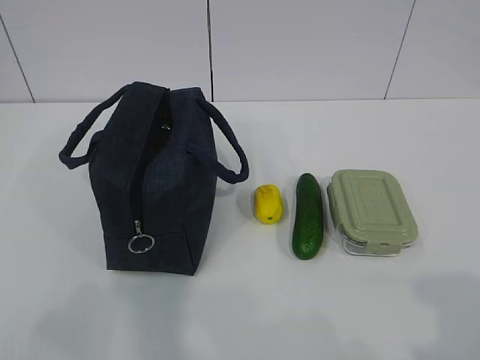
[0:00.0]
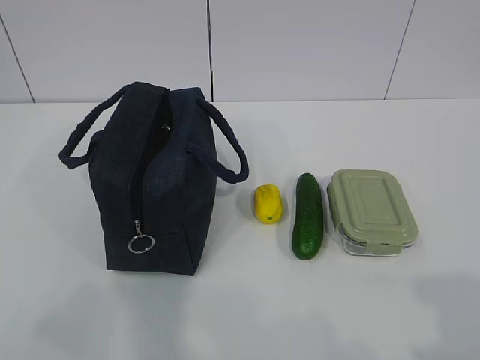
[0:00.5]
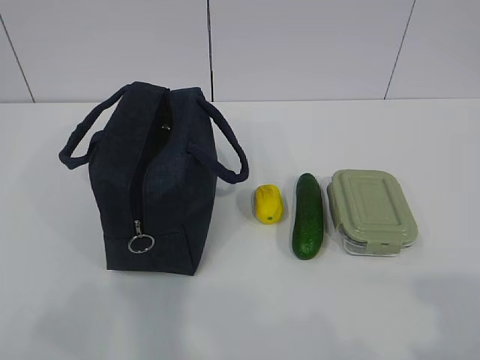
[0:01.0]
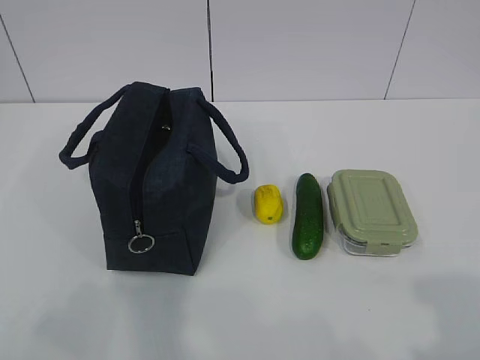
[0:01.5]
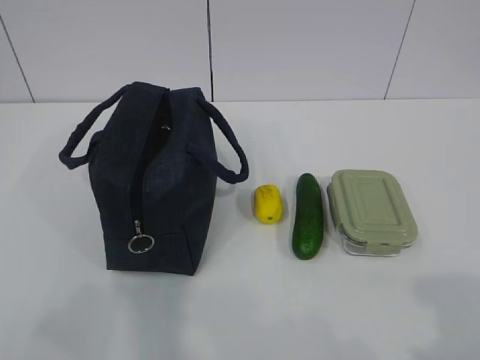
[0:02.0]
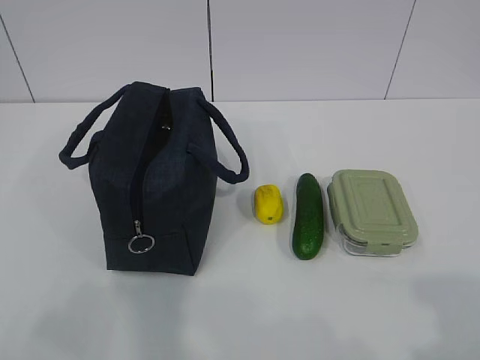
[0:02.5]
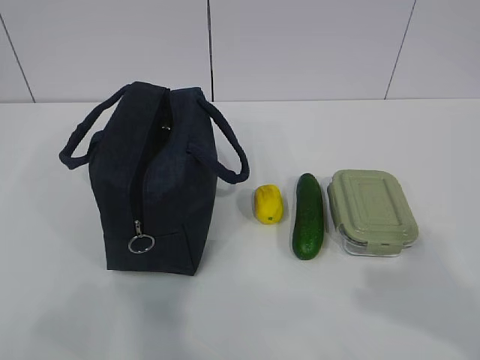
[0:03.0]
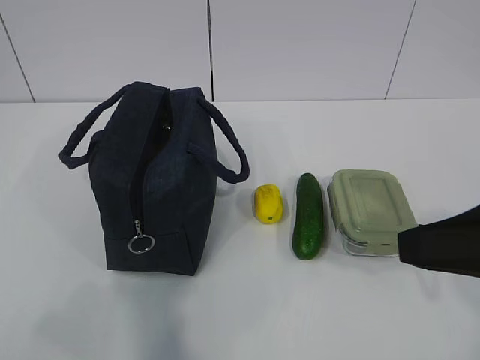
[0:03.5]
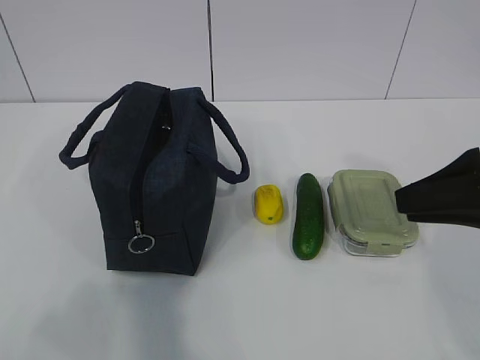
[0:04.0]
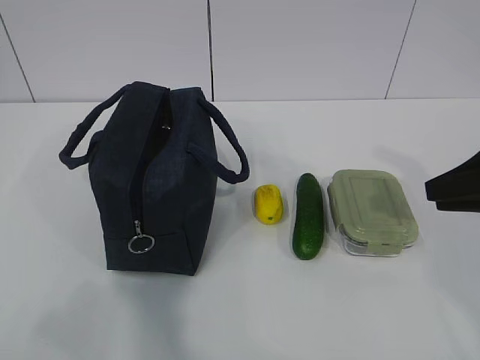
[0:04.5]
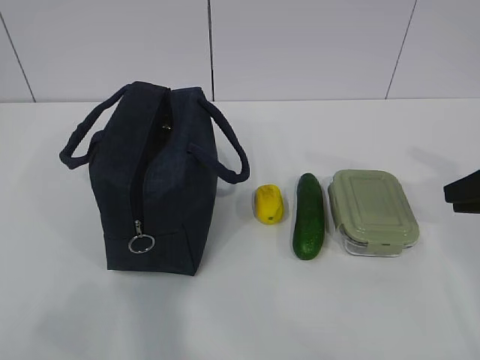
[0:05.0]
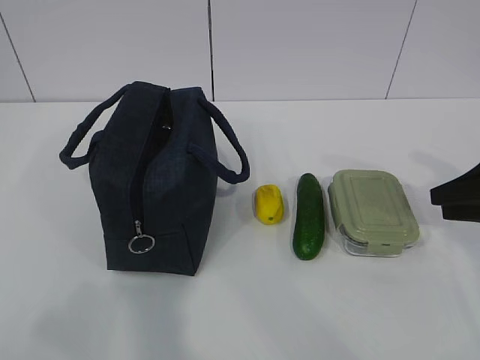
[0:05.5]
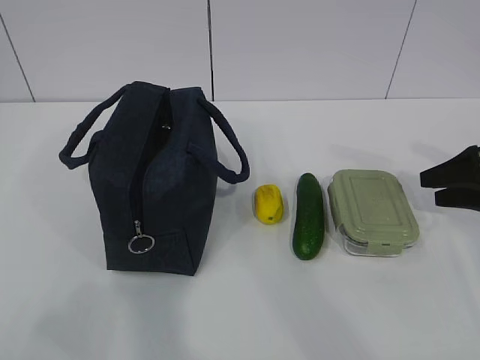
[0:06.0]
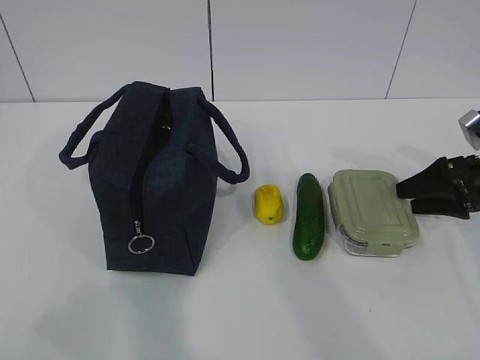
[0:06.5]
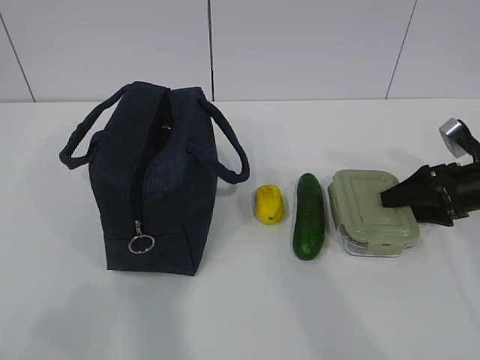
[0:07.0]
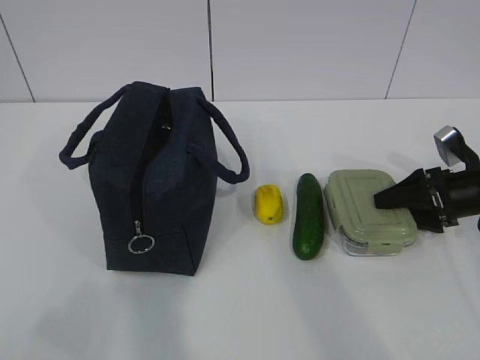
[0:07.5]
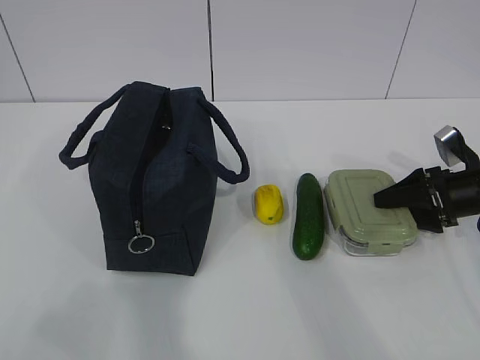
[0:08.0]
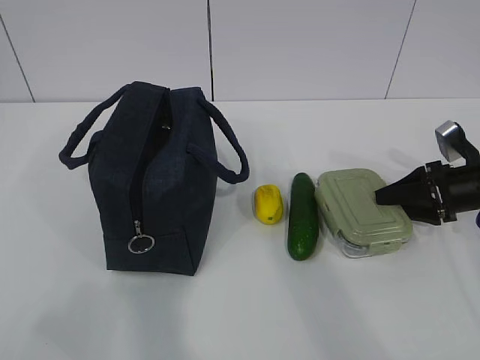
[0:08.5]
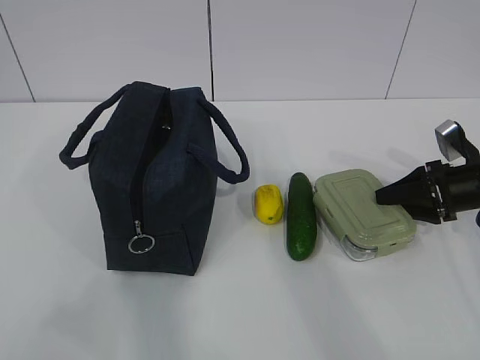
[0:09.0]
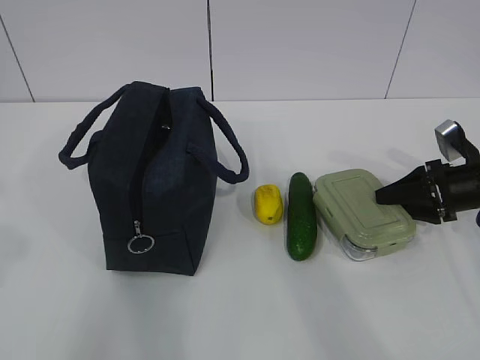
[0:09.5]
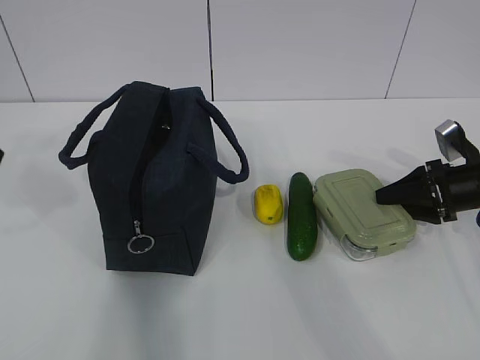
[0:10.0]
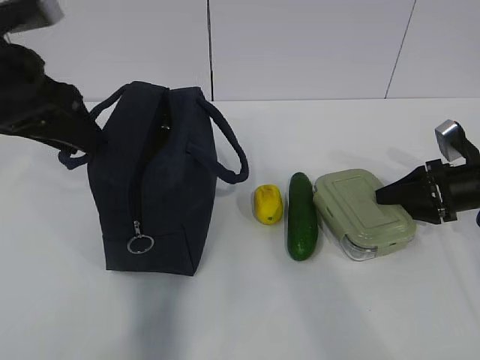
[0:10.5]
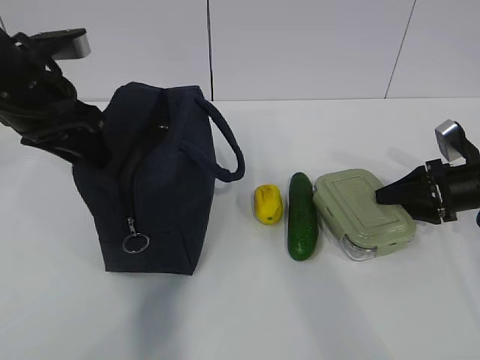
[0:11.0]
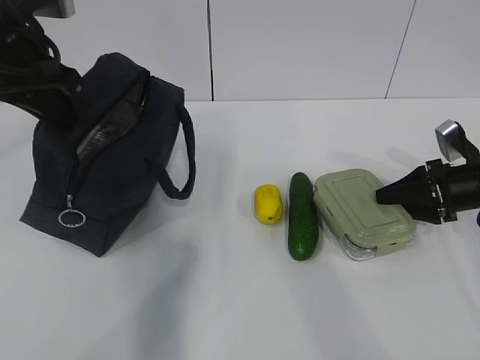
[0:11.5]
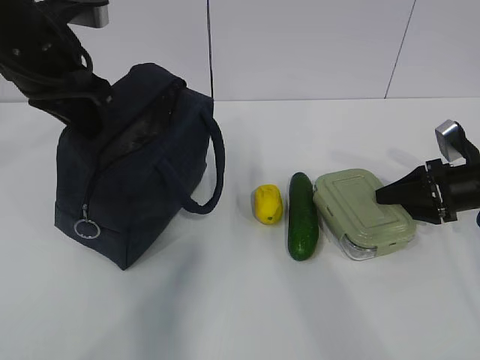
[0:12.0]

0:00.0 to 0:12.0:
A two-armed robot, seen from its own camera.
Step, 0:00.0 to 0:07.5: Grasp the box with the right gripper.
Step, 0:08.0 to 0:12.0: Grasp the package with the left gripper.
0:02.0 to 0:04.0: The right gripper travels forward by some 25 cm.
0:04.0 to 0:06.0: The right gripper travels forward, to the right and downward by some 20 cm, and opens its fingers.
0:06.0 to 0:08.0: The right gripper heads downward, covering about 5 cm.
0:08.0 to 0:10.0: The left gripper moves forward, approximately 20 cm.
0:10.0 to 0:12.0: The left gripper travels forward and to the right by about 15 cm, and closes its fingers.

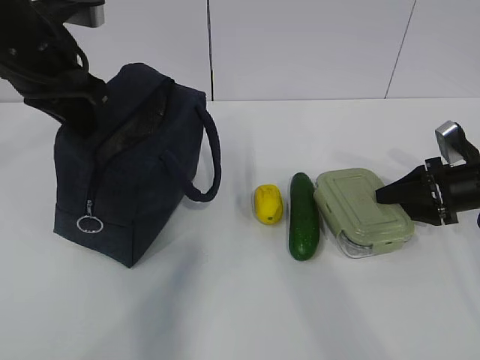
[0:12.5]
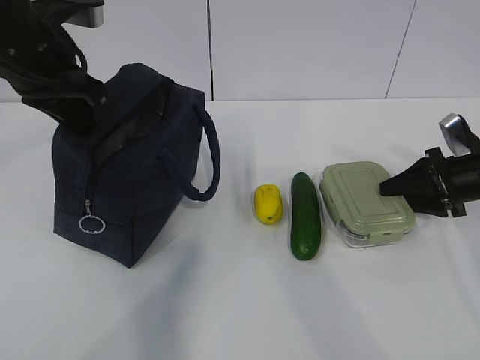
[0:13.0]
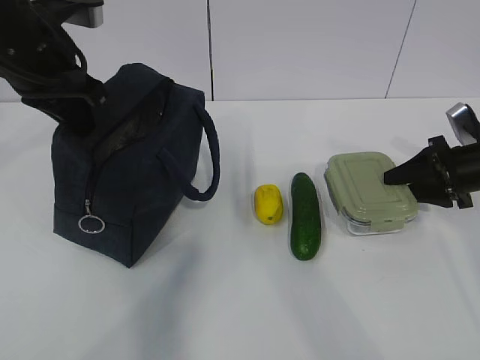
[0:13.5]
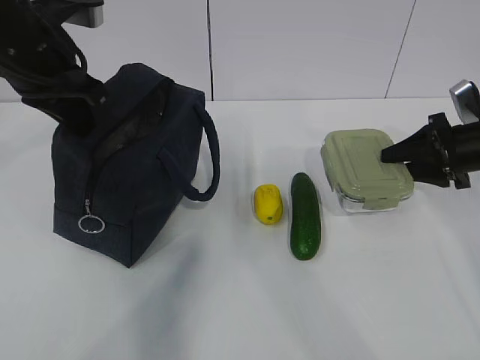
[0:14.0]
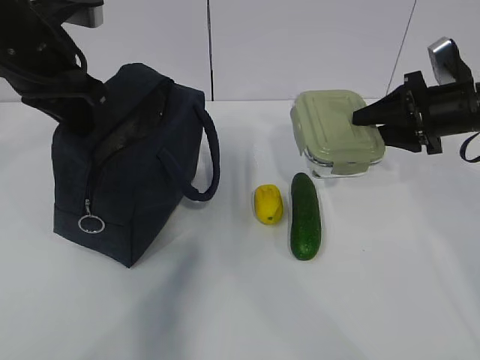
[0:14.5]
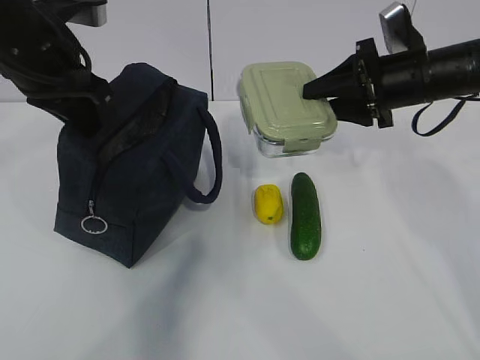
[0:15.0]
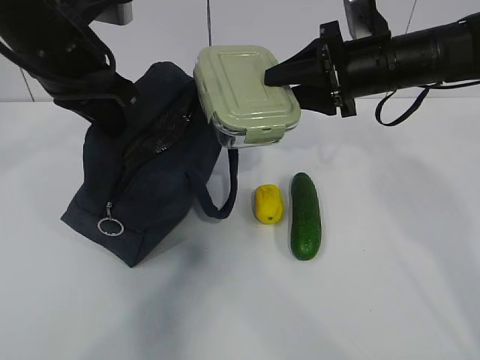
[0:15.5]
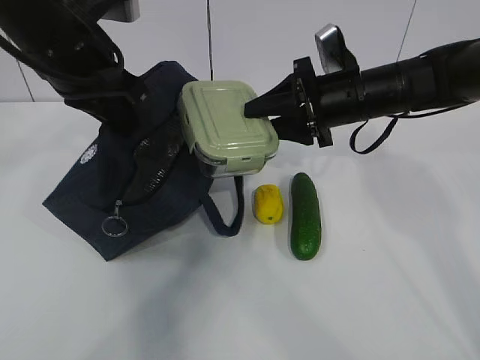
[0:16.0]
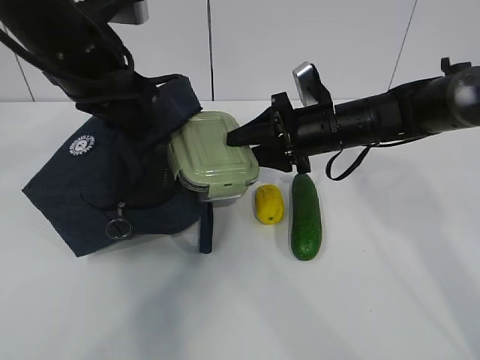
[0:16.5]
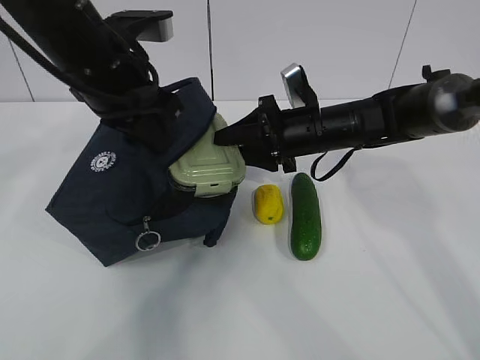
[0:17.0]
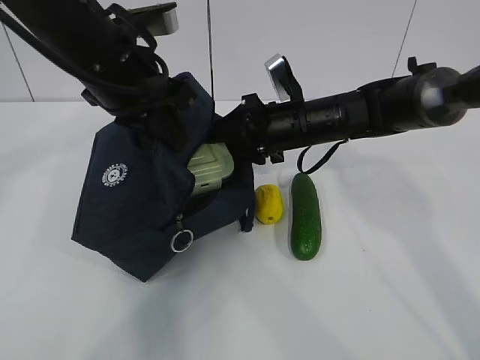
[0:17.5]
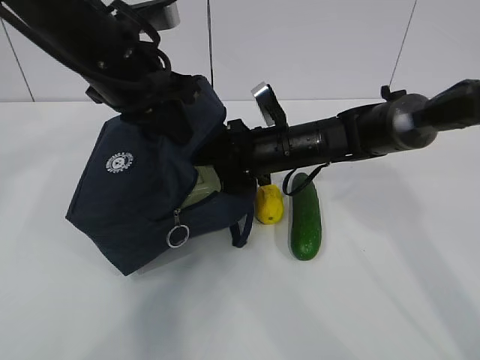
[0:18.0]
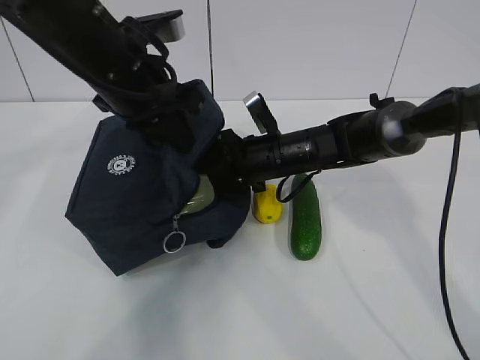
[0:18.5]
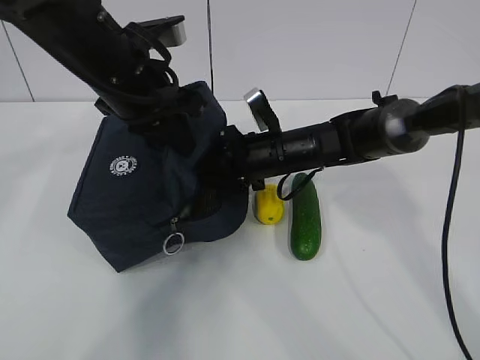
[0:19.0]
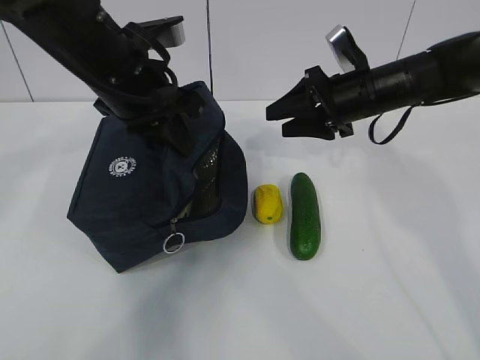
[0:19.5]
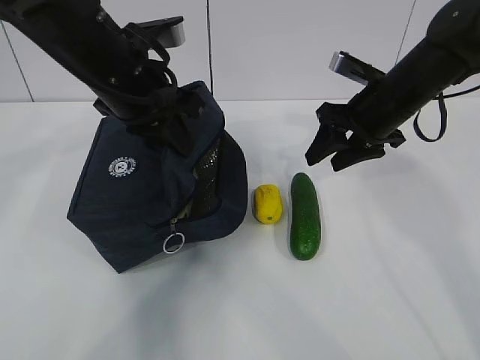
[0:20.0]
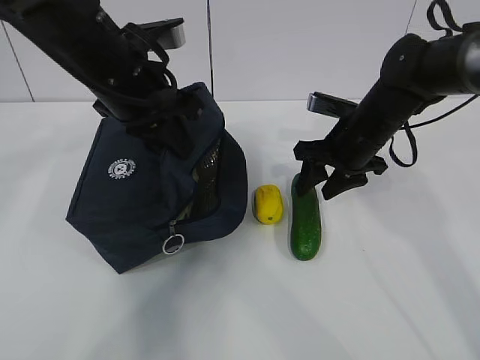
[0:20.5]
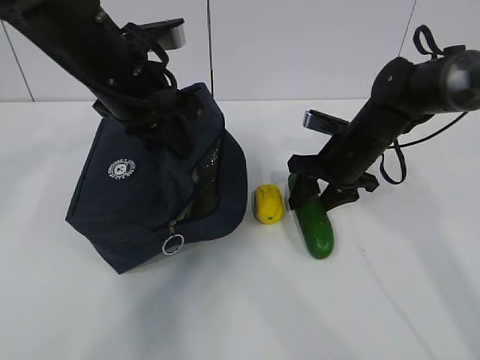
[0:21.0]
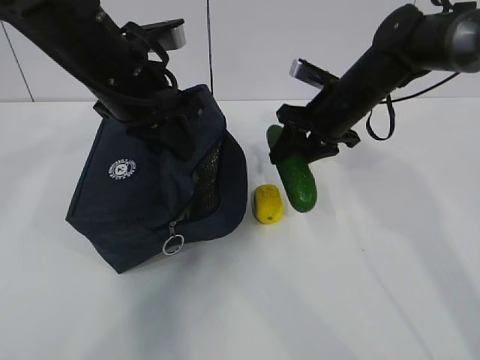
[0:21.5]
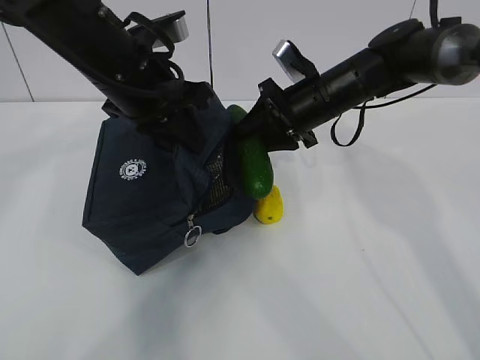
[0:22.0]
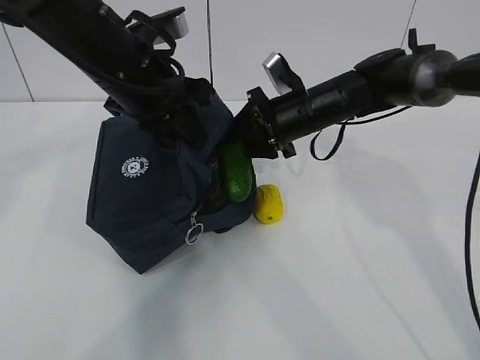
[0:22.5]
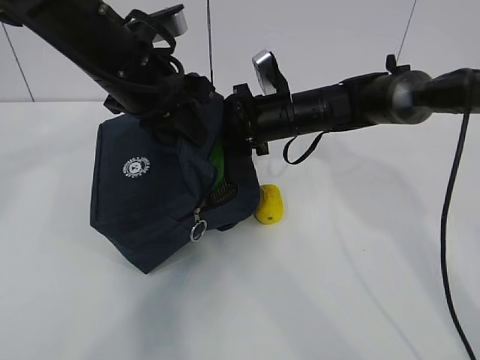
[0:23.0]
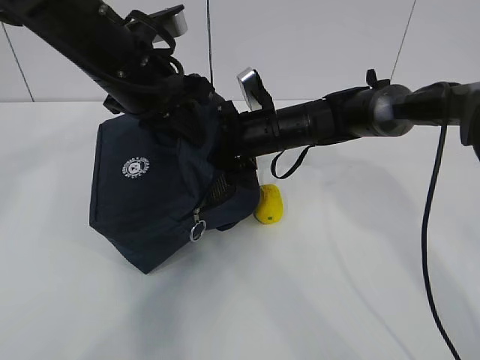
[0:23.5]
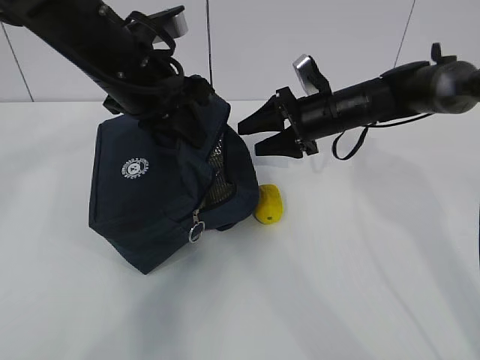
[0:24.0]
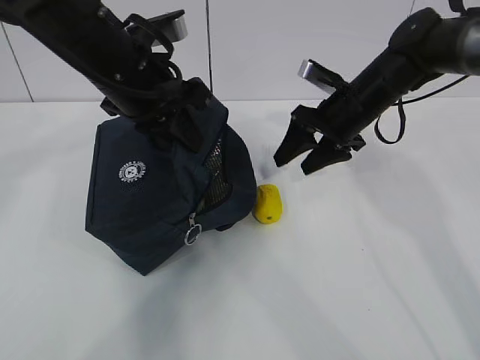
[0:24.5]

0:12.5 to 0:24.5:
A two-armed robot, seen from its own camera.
Step, 0:12.5 to 0:19.0: Place the box into the package with the right gripper.
Step, 0:19.5 to 0:21.0: Grasp the cucumber with the right gripper.
Step, 0:21.5 to 0:23.5: Place the cucumber into the package with the right gripper.
0:12.5 to 0:14.5: The right gripper shifts roughly 10 cm upward and to the left.
0:14.5 to 0:16.5: The right gripper moves to the left, roughly 15 cm. Meanwhile the left gripper shifts by some 5 cm.
0:16.5 to 0:18.5: The right gripper moves to the left, about 5 cm.
0:18.5 to 0:20.5: The right gripper moves to the right, roughly 10 cm.
0:20.5 to 0:22.5: The right gripper goes roughly 5 cm to the left.
0:22.5 to 0:24.5: The right gripper shifts about 5 cm to the right.

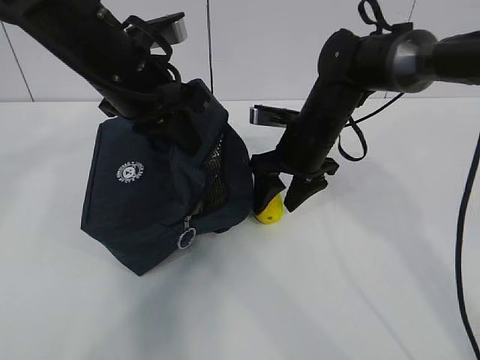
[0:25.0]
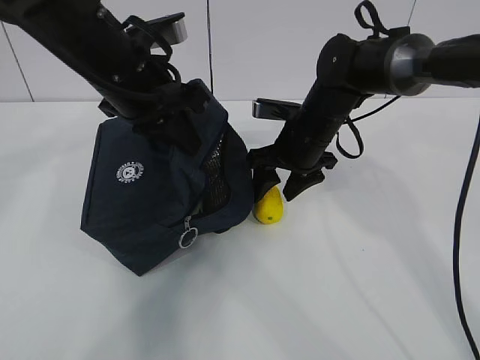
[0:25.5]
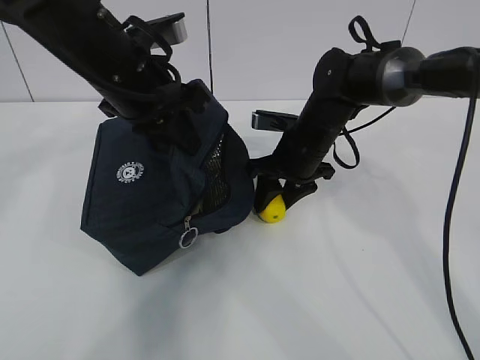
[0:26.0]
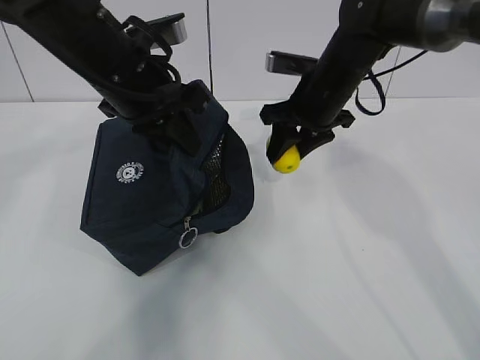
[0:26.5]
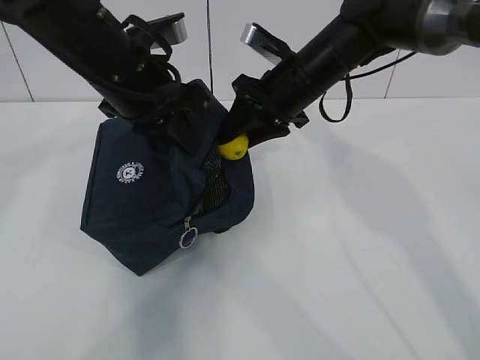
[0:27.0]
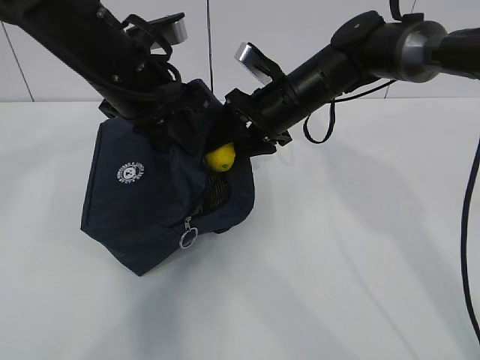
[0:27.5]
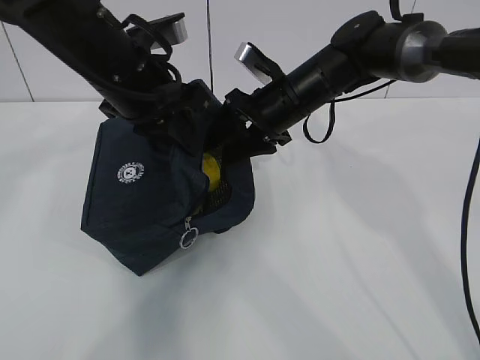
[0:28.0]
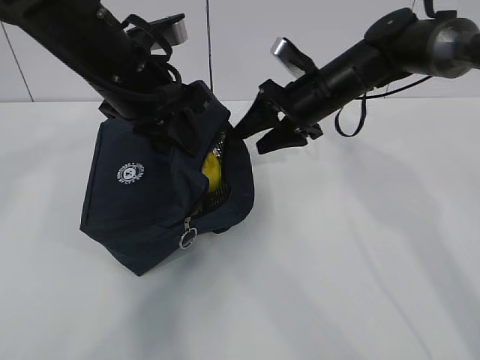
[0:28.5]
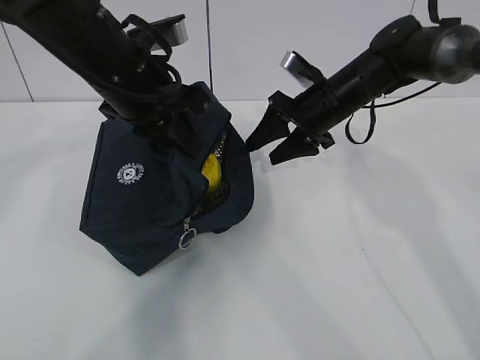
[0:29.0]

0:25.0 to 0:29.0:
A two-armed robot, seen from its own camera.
Step, 0:26.5 to 0:28.0: Place the lemon into the package with the right gripper.
0:25.0 to 0:27.0: The right gripper travels upward by roughly 5 cm, and closes up.
0:27.0 to 0:29.0: The right gripper ends up about 10 cm from where it was.
